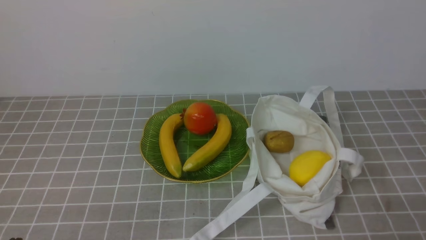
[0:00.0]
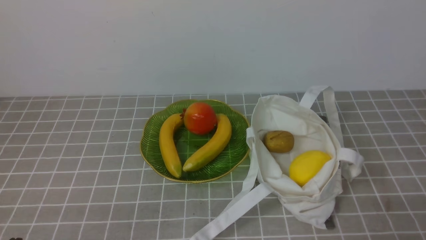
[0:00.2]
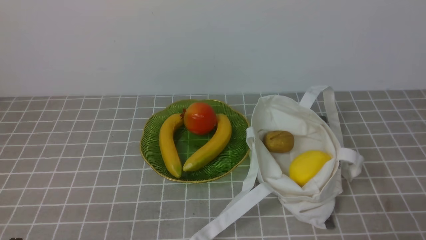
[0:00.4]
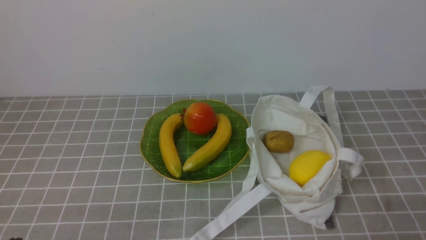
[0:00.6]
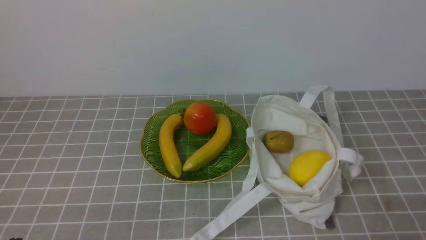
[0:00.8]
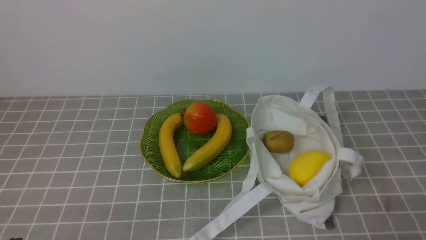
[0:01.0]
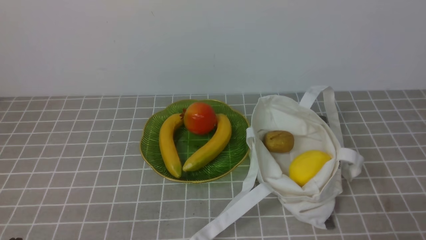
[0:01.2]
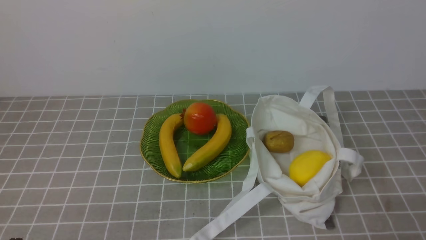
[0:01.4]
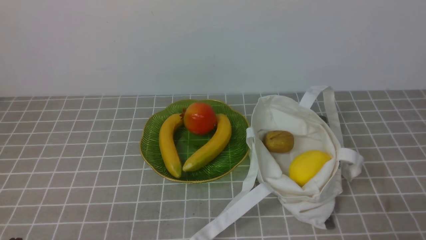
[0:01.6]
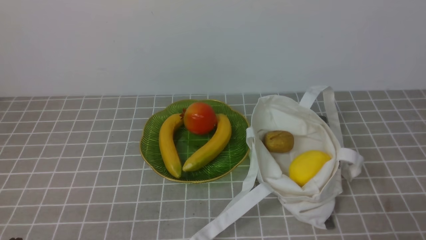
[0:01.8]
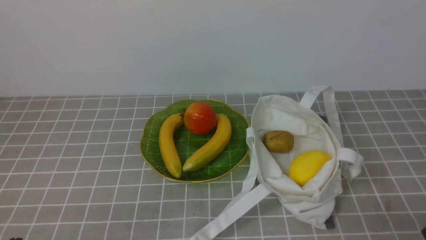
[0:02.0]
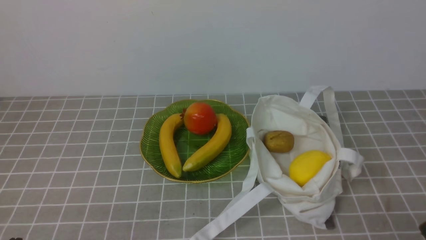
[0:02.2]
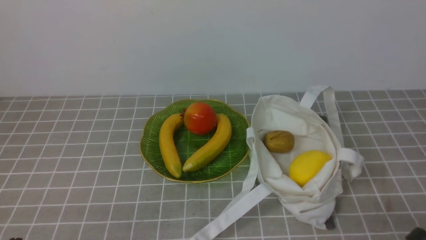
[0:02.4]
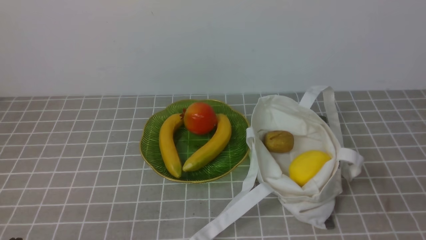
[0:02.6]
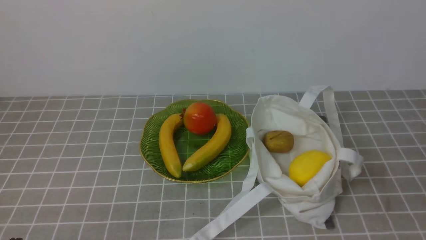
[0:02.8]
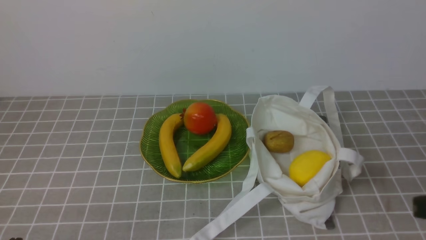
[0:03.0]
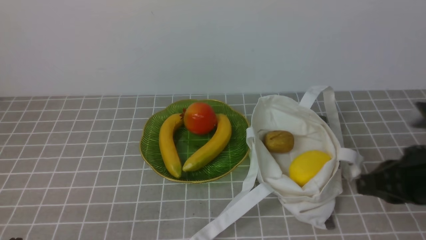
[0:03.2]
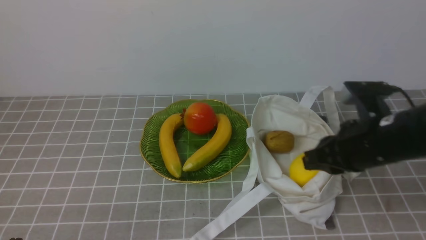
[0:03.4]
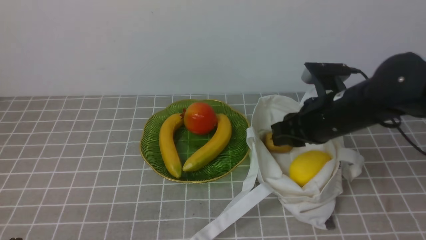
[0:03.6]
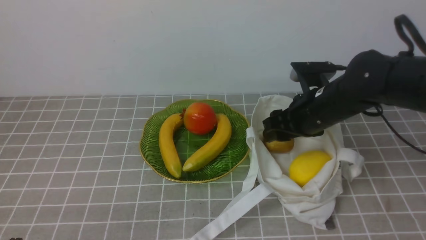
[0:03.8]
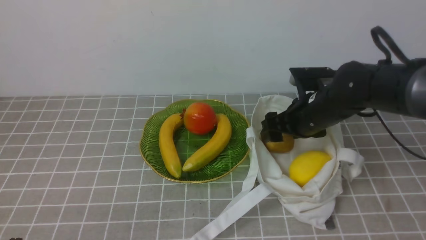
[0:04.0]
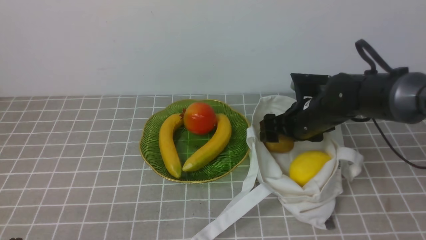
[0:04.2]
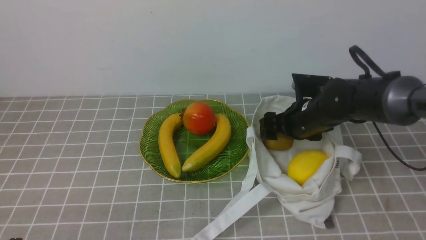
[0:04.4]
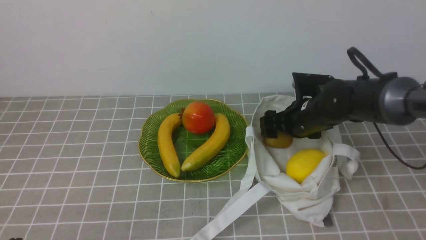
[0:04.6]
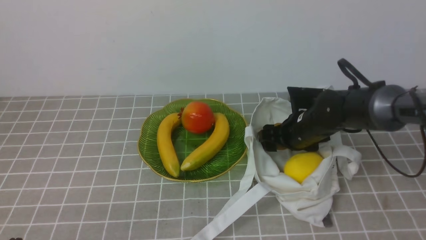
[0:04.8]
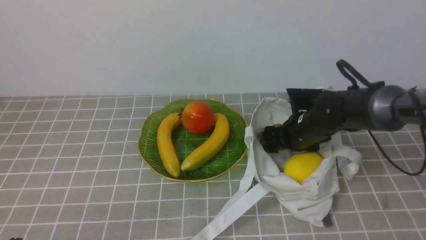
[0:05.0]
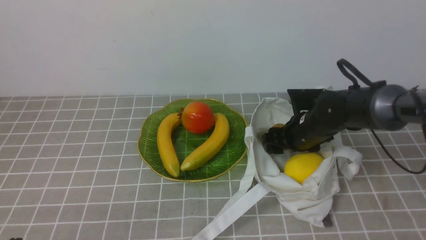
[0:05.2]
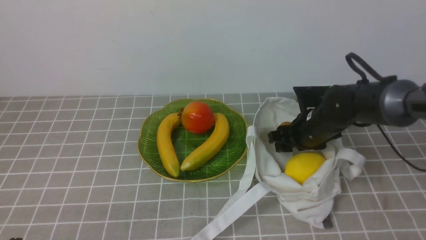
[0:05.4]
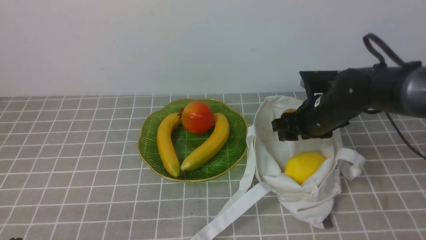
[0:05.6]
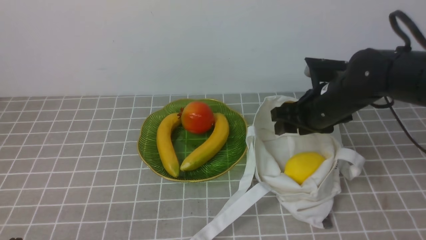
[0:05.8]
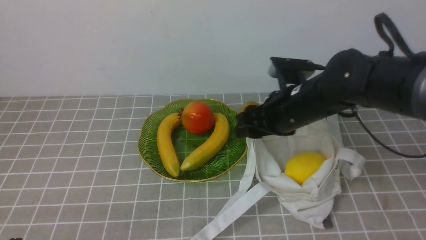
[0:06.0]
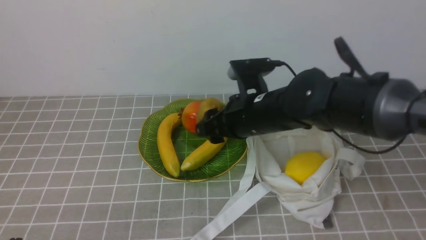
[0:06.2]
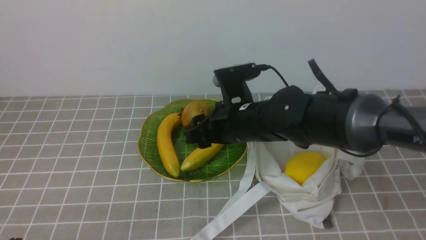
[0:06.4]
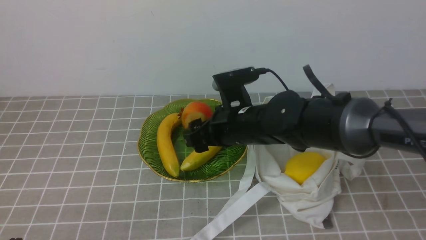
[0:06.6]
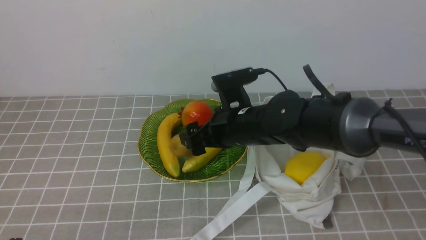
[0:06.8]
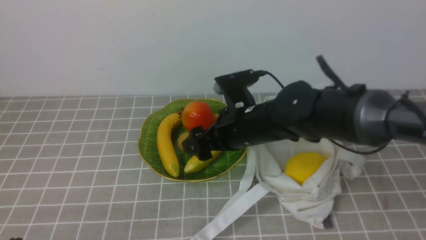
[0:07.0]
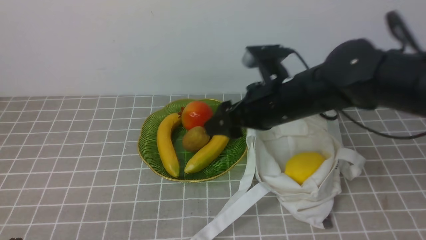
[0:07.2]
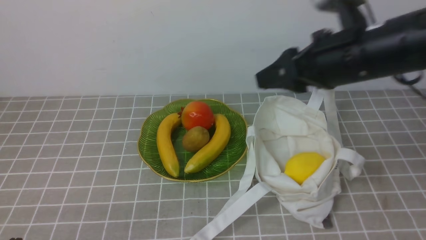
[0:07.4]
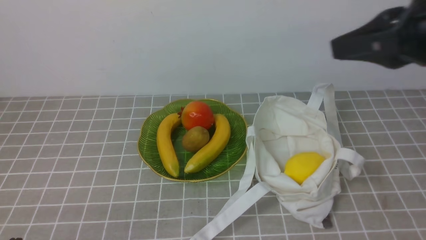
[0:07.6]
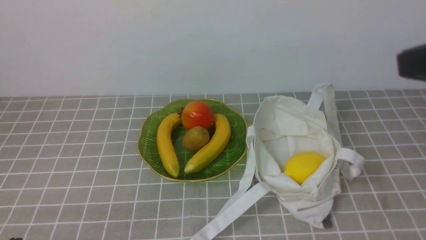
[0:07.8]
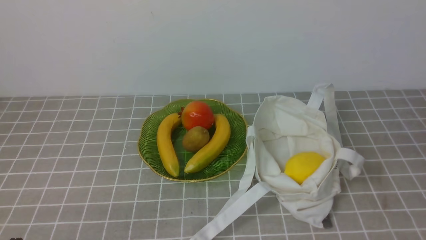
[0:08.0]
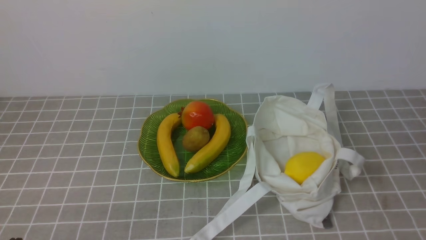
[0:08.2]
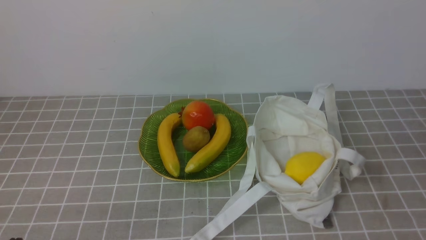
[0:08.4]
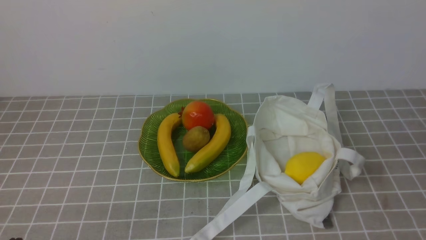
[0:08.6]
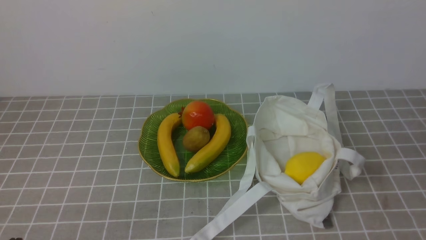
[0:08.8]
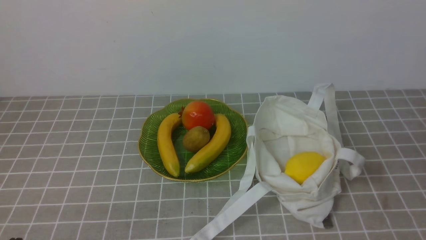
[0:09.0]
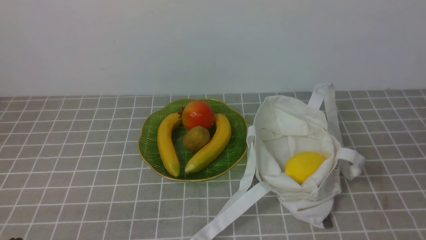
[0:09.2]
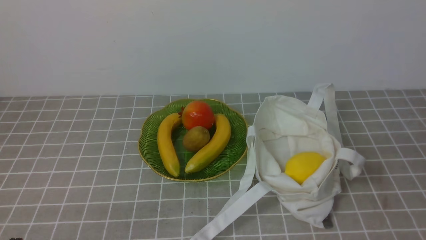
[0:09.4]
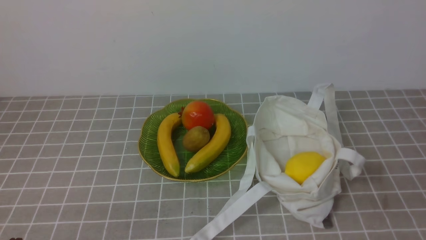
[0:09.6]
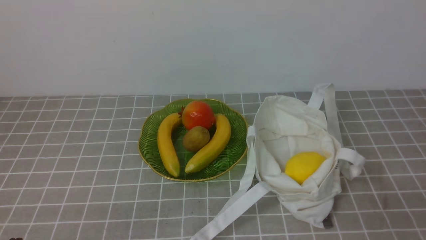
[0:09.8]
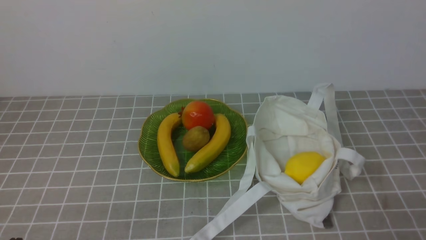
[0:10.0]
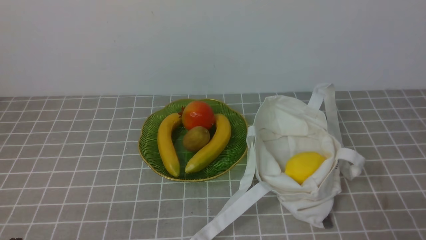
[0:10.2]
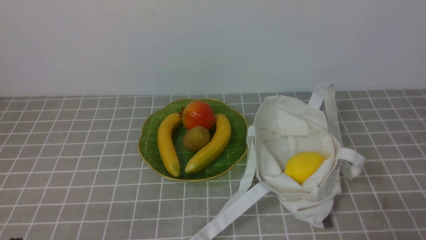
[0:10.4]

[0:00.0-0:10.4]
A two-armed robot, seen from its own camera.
Step, 0:00.0 to 0:05.6: use the right arm to grab a kiwi from the bag.
Step, 0:05.8 to 0:06.8: use the right arm to put the kiwi into the empty plate on the left.
0:00.0 to 0:01.4: The two grippers keep their place.
0:03.0 to 0:04.4: The right gripper moves forward, to the left and downward, roughly 30 cm, and opens up.
0:04.4 to 0:06.0: The right gripper is displaced upward and to the left by roughly 10 cm.
0:06.0 to 0:07.4: The right gripper is displaced upward, to the right and backward by some 15 cm, and opens and closes again.
0:07.4 to 0:09.0: The right gripper goes roughly 25 cm backward and to the right, and closes its fingers.

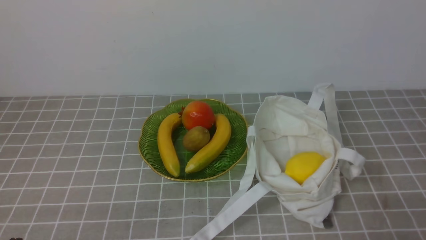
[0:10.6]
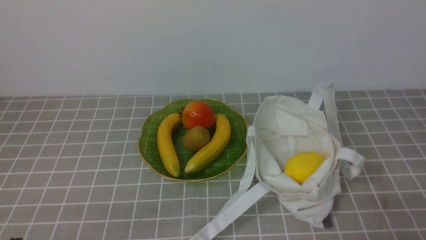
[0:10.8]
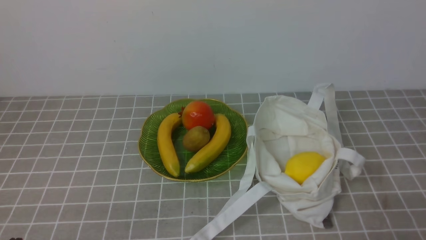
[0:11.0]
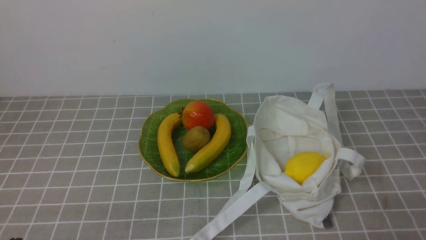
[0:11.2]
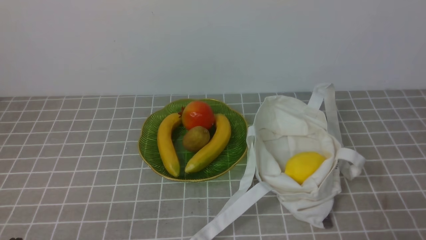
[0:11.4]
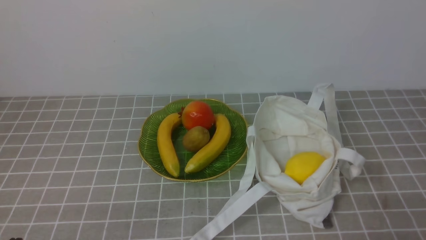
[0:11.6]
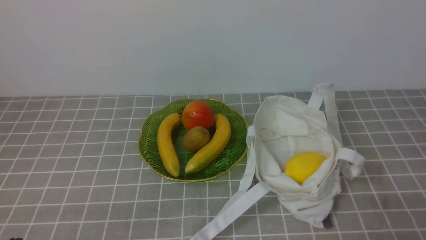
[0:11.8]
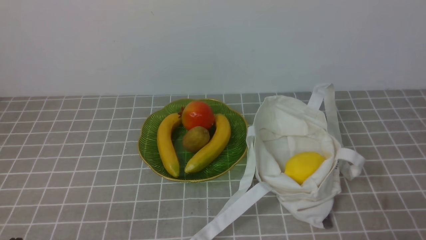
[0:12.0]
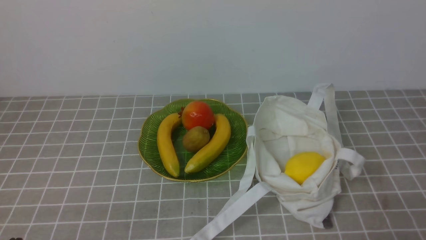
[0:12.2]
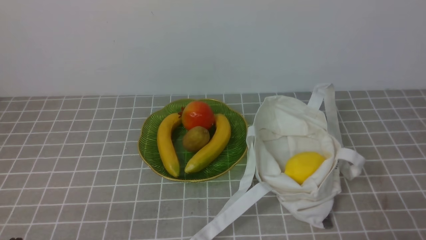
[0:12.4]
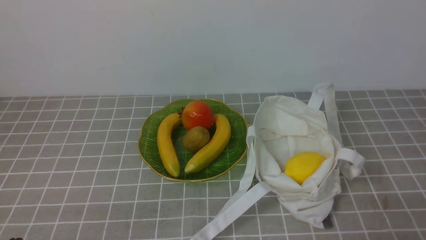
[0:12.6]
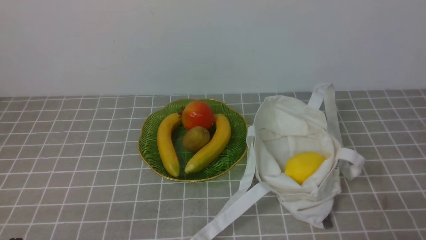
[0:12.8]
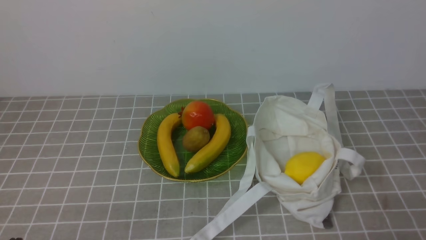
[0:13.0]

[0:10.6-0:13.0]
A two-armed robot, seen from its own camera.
0:10.6 to 0:13.0: The two grippers keep their place.

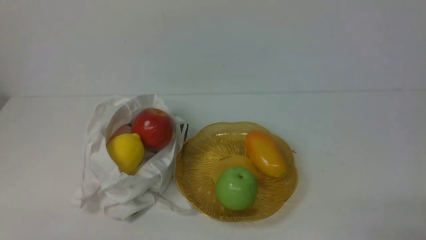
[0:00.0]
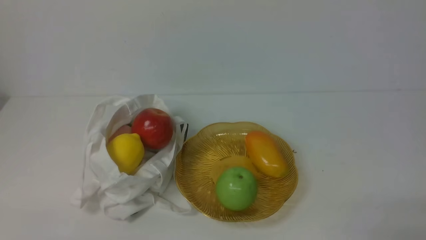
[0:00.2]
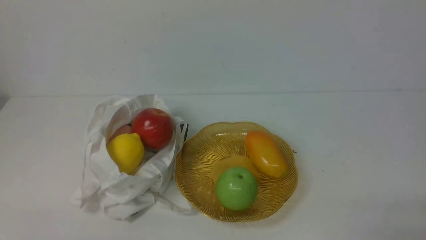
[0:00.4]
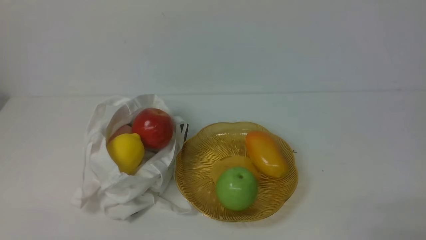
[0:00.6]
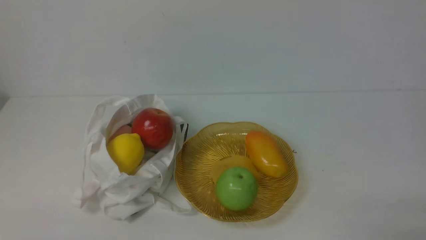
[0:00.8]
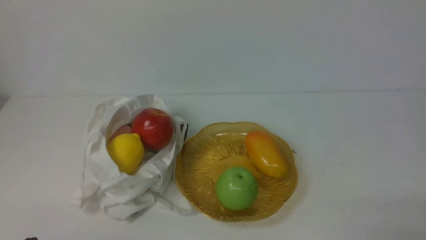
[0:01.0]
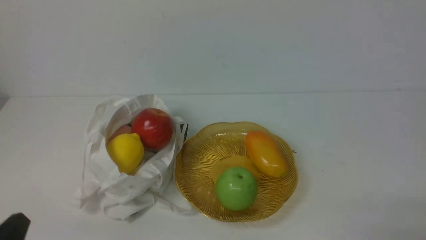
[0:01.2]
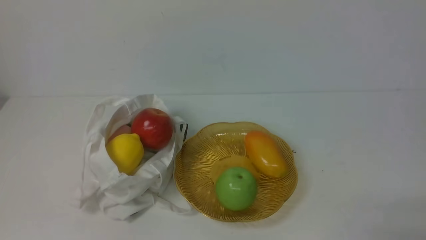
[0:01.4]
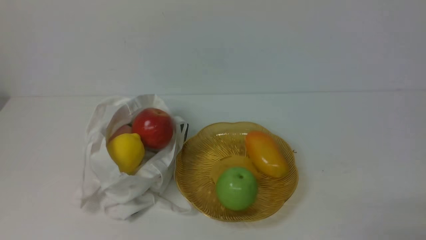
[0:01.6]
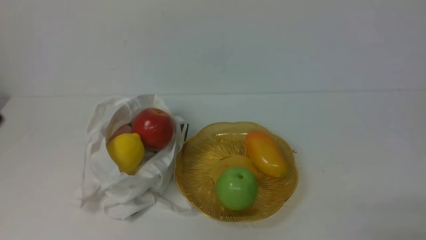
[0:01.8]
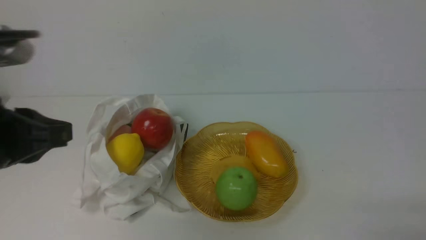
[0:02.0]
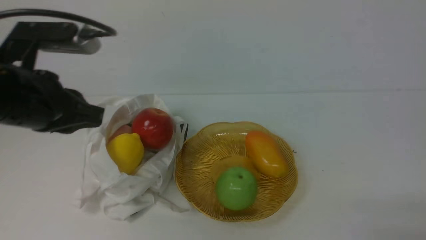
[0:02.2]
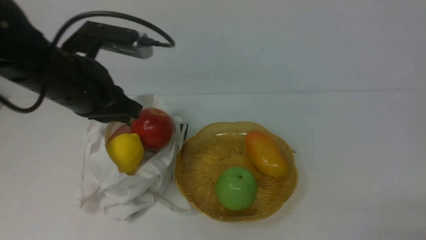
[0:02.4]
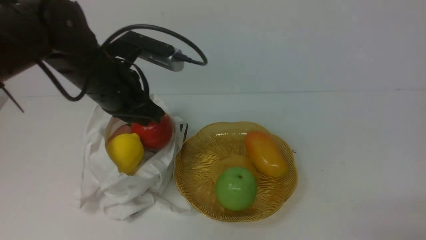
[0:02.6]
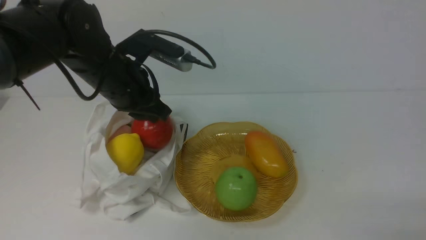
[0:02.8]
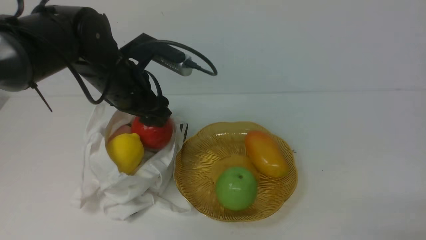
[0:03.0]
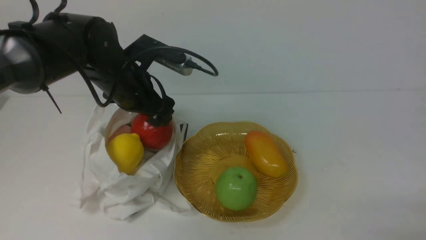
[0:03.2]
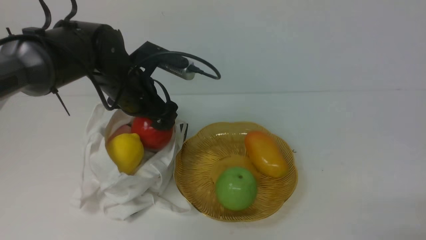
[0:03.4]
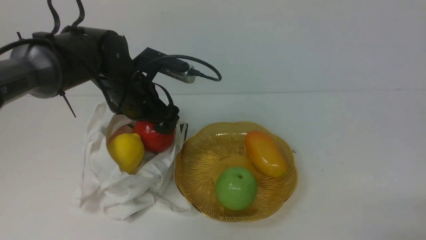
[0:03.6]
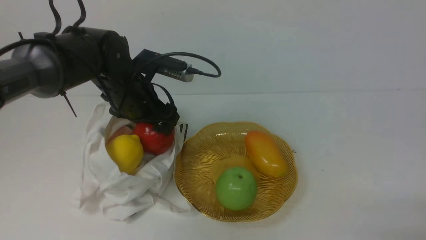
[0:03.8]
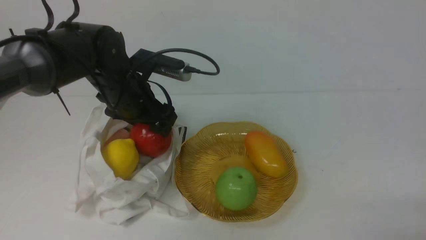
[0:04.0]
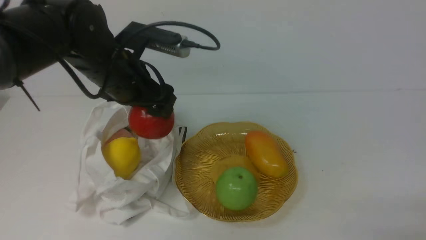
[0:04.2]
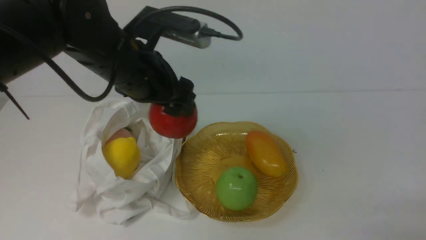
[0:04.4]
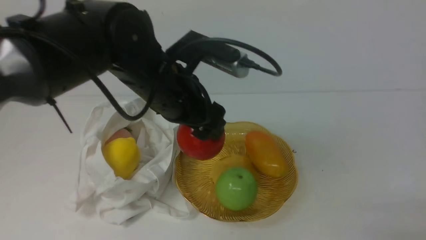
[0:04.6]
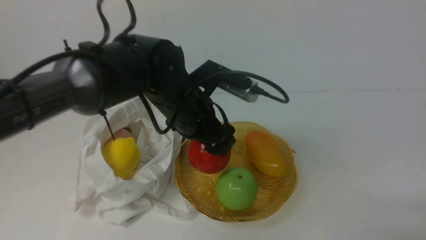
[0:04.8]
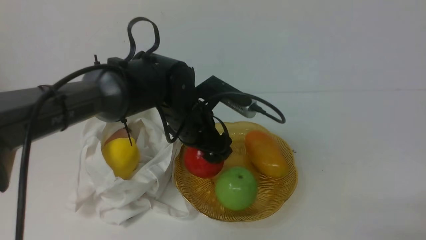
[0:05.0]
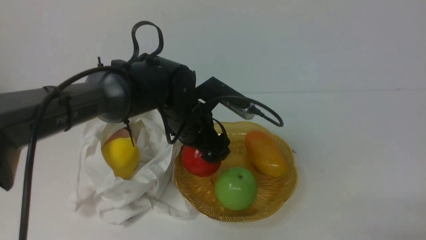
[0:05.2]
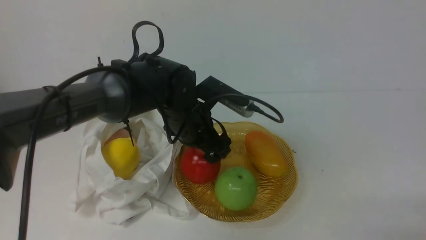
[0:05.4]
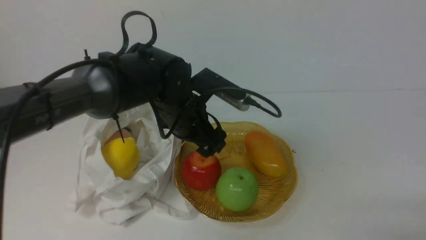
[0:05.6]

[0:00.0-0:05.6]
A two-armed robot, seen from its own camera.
Step, 0:00.0 to 0:04.2: use the left arm to grab an apple from the bag.
0:01.4 to 0:02.8: The left gripper shifts about 30 cm forward.
0:02.8 to 0:04.2: The left gripper opens its fingers.
0:04.2 to 0:05.6: The left gripper moves to the right, about 10 cm.
